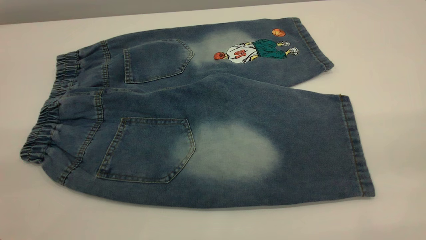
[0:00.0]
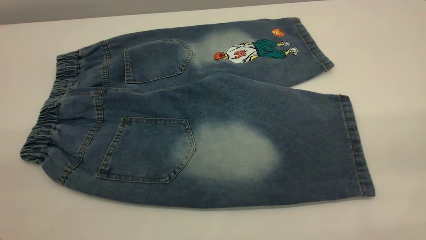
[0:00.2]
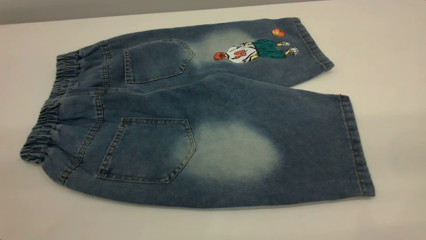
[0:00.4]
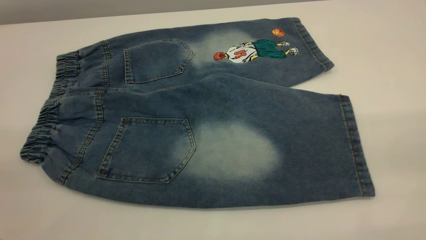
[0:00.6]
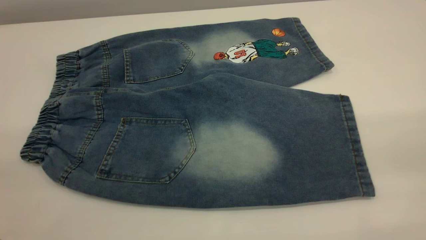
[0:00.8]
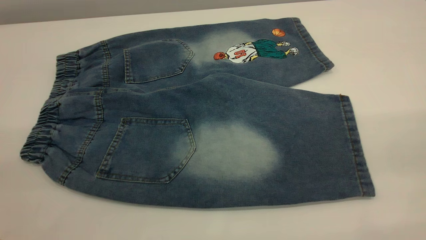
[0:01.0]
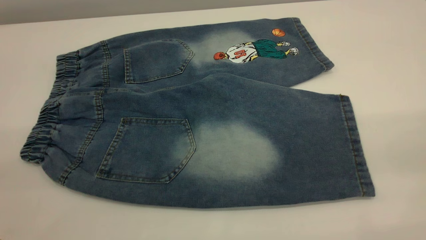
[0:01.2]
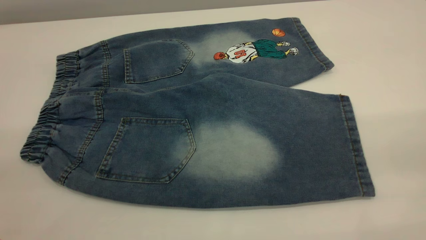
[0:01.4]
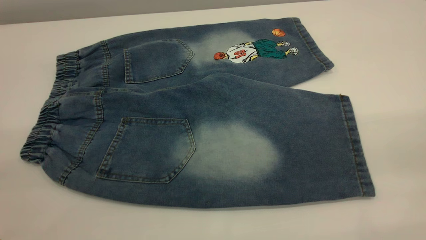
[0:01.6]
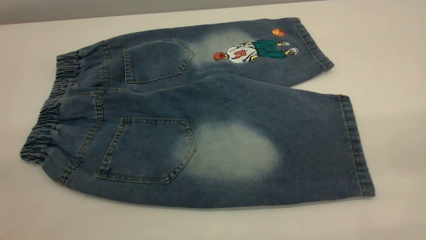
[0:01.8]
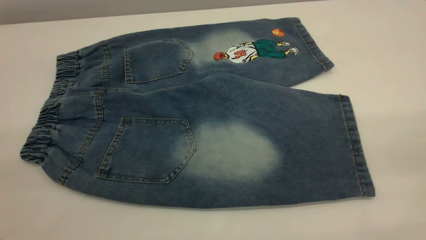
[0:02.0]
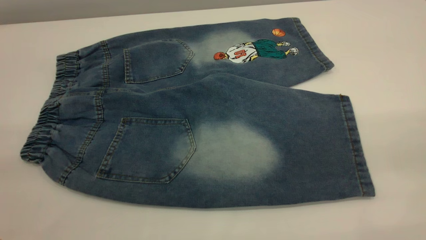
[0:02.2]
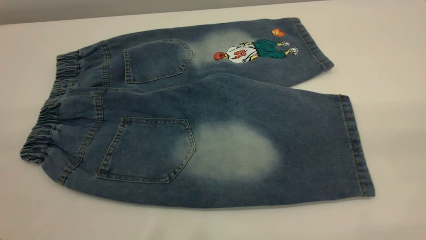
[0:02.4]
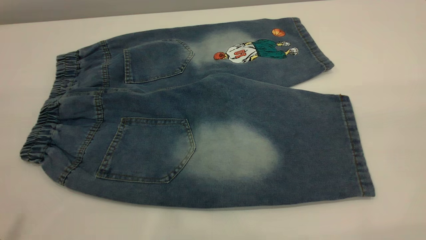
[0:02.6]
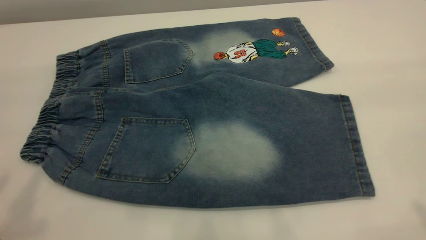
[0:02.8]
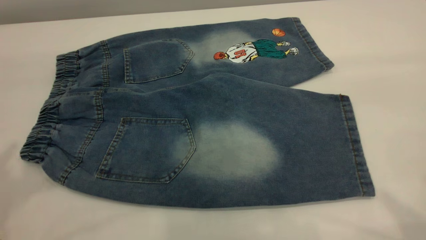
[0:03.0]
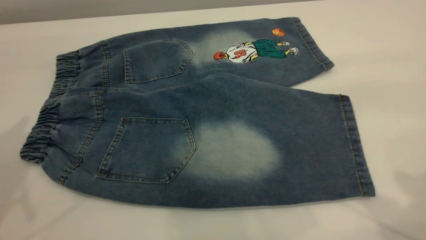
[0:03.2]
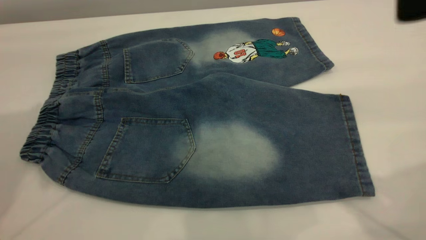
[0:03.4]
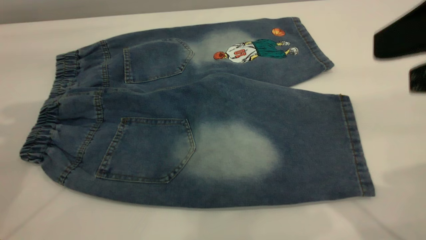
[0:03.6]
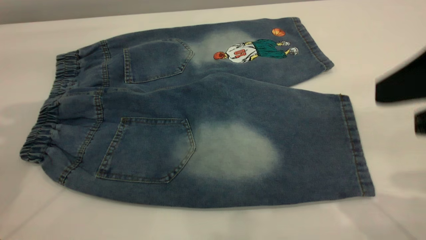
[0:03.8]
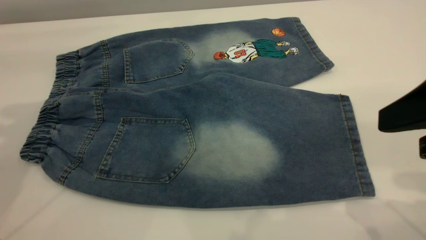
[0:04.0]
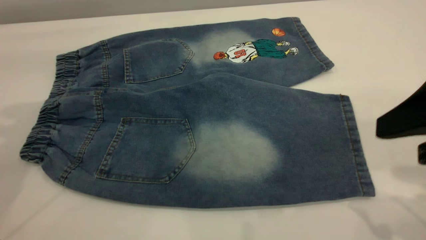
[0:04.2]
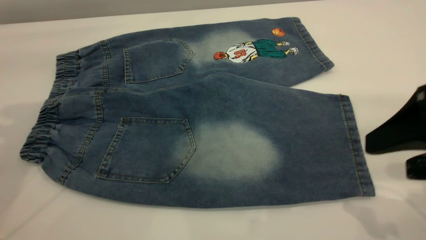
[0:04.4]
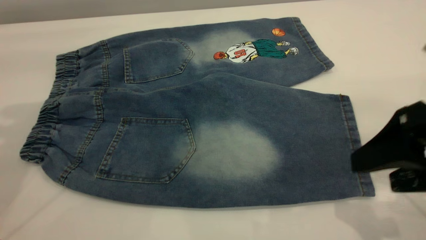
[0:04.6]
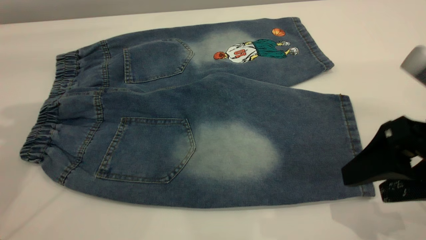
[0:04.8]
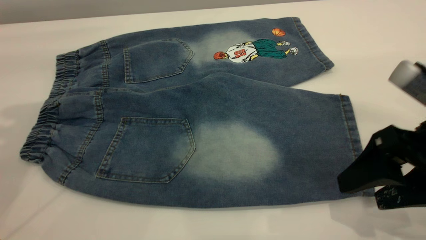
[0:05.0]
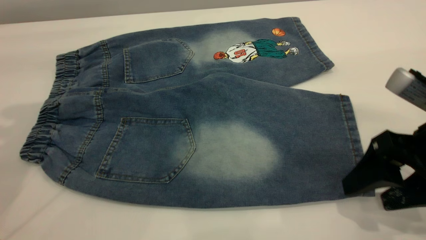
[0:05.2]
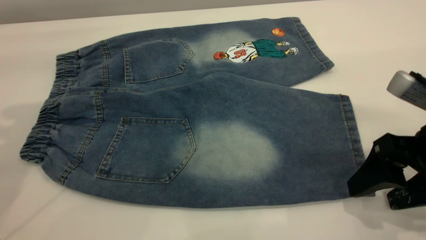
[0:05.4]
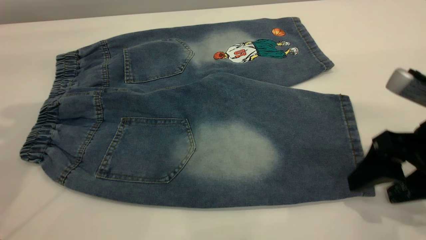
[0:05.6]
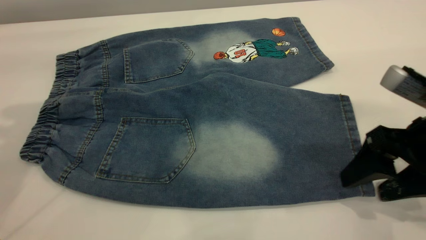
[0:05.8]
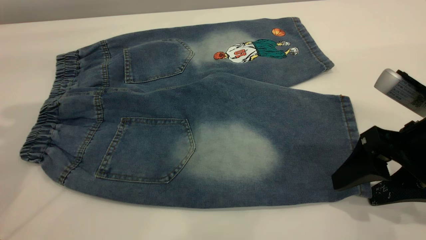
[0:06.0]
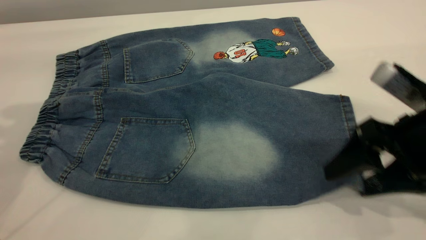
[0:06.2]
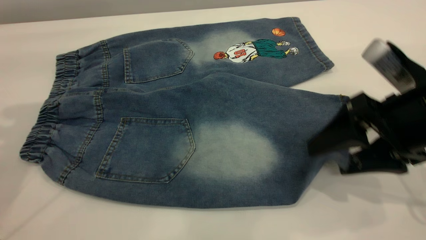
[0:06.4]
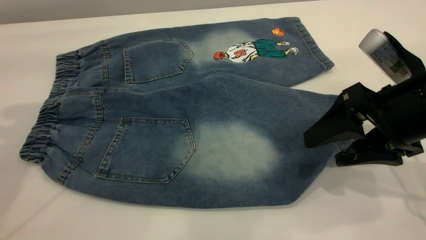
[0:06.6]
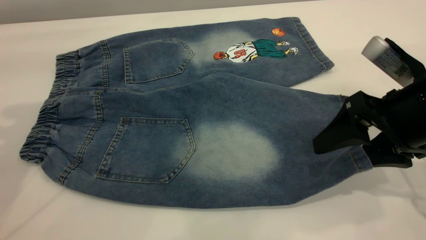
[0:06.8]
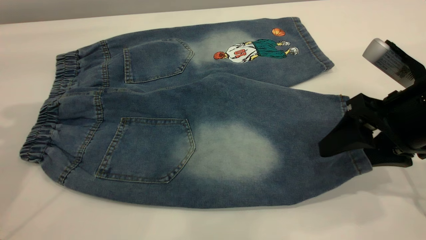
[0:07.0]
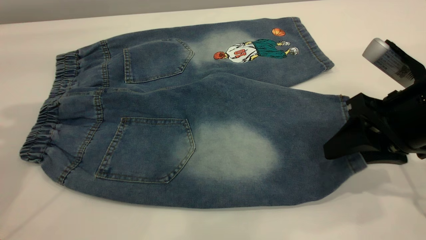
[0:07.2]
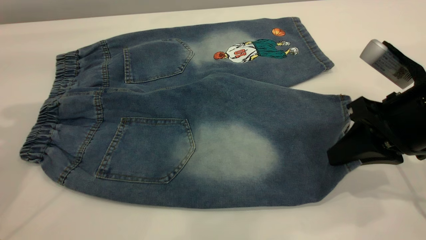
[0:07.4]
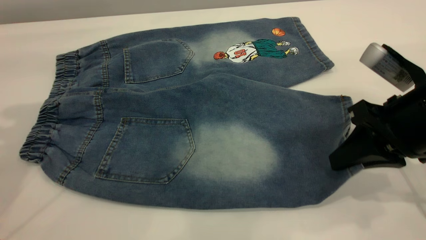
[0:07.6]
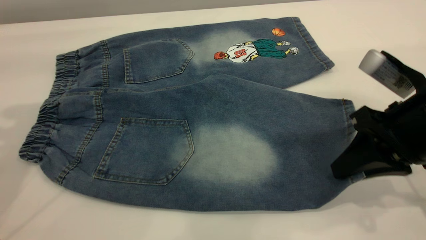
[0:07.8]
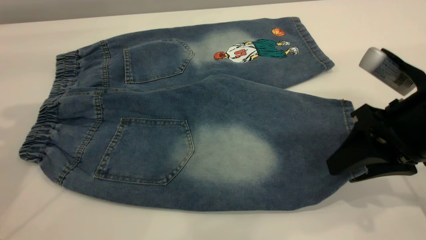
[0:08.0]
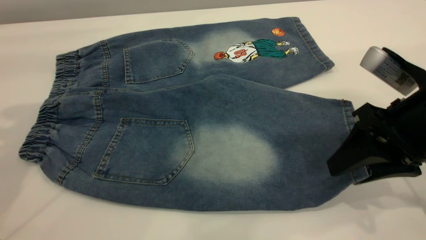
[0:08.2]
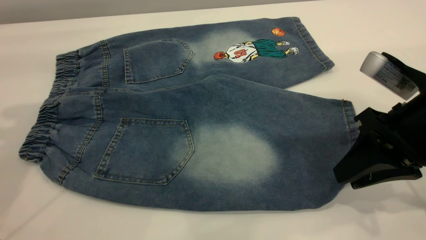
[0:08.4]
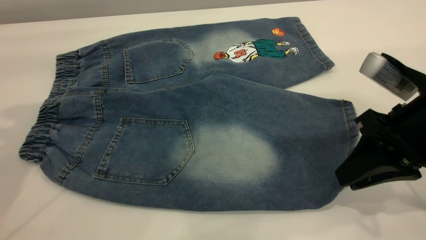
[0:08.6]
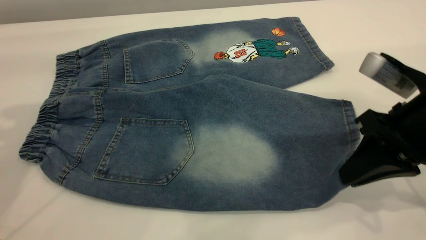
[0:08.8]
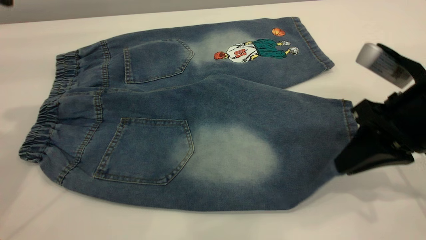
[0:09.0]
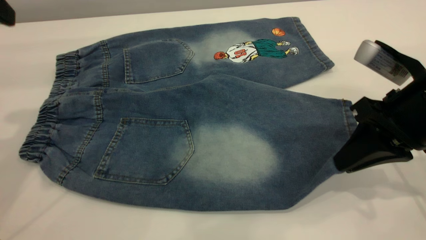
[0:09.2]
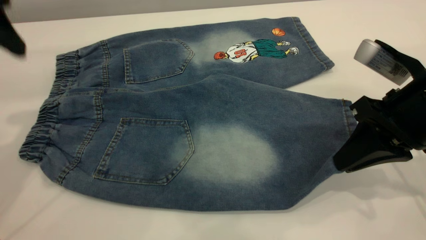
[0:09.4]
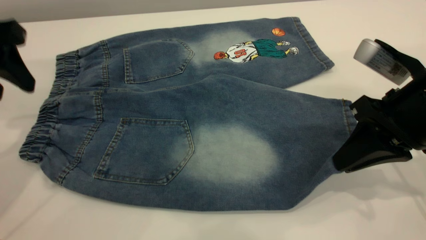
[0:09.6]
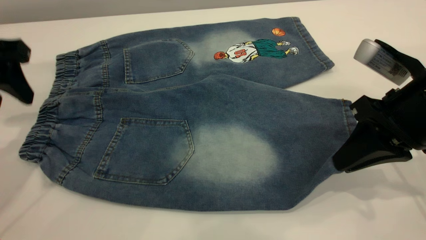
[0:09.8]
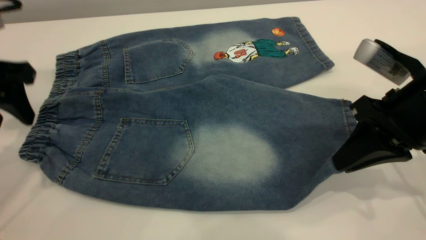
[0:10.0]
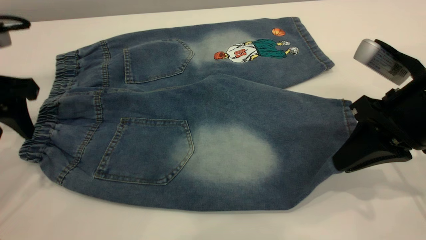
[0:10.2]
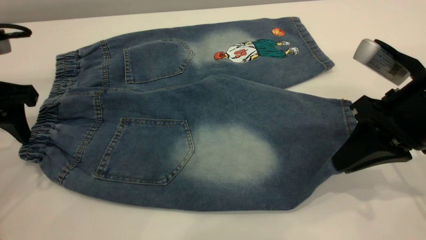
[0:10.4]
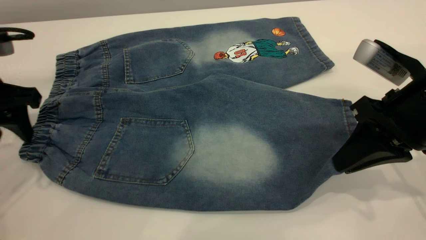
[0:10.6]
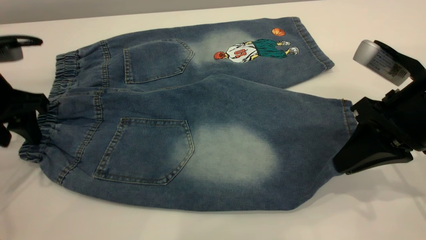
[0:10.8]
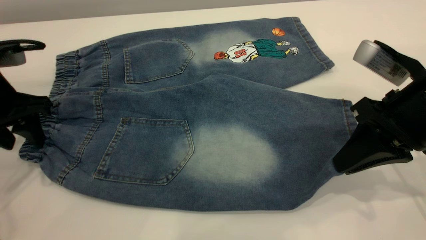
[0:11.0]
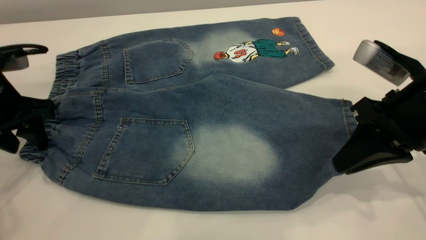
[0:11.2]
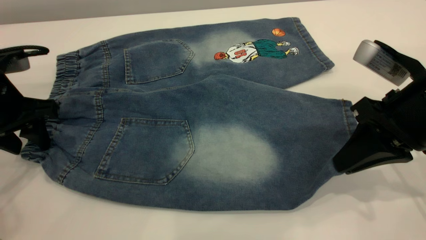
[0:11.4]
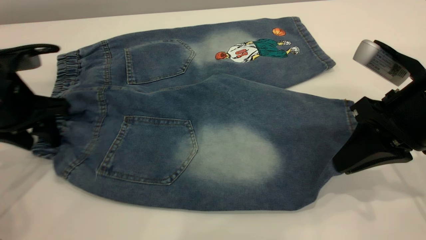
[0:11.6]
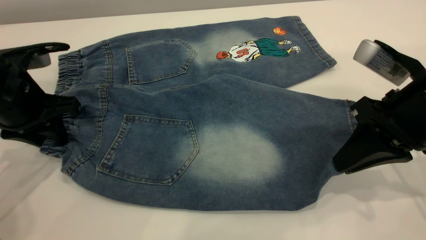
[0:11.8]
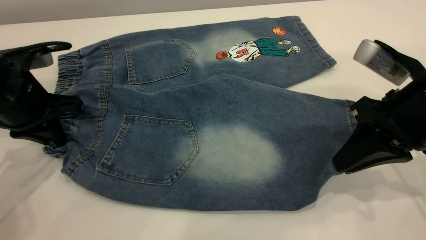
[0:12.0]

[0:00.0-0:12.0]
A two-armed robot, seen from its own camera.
0:00.0 to 0:01.6: Both grippers stay about where they are.
0:03.0 to 0:04.4: The left gripper travels forward and downward by about 10 cm. The right gripper goes approximately 20 cm downward.
0:04.4 to 0:06.0: The right gripper heads downward, covering about 5 cm.
0:06.0 to 0:07.6: The right gripper closes its fingers.
0:07.6 to 0:09.0: The right gripper opens, then closes once more.
0:09.0 to 0:10.4: The left gripper heads downward, covering about 15 cm.
0:10.4 to 0:12.0: The left gripper is displaced downward by some 5 cm, and closes.

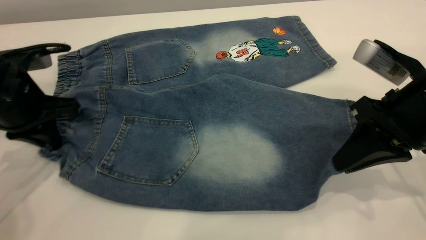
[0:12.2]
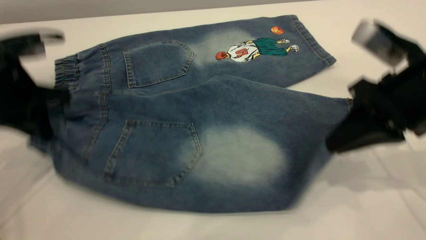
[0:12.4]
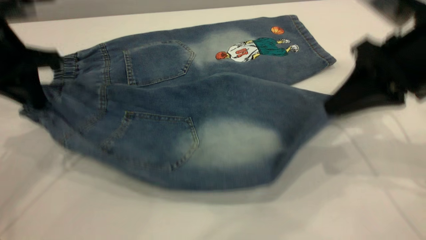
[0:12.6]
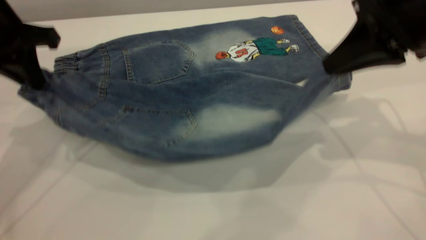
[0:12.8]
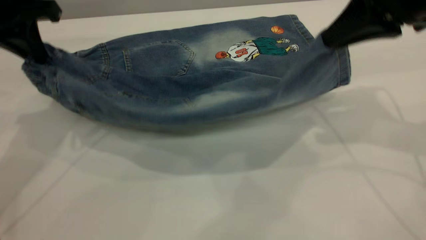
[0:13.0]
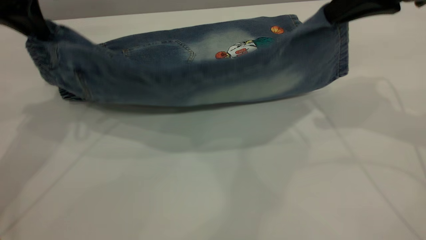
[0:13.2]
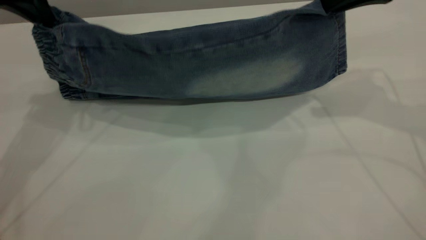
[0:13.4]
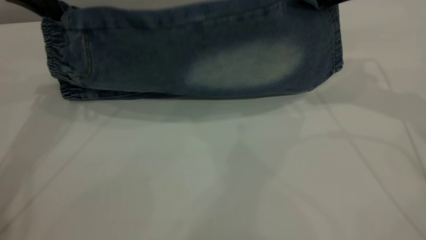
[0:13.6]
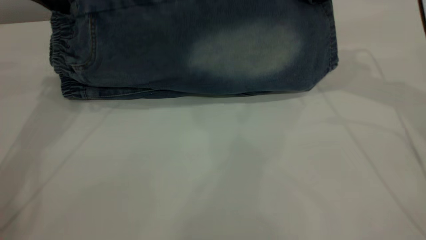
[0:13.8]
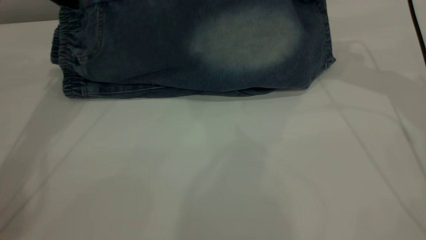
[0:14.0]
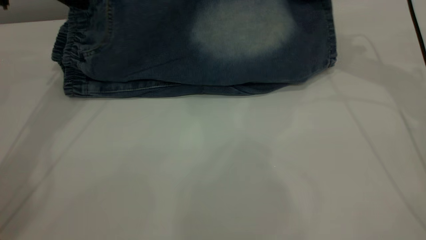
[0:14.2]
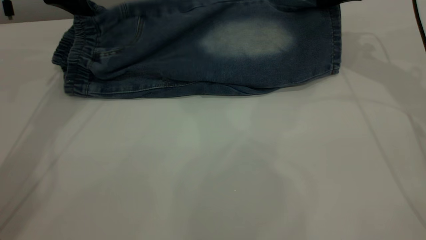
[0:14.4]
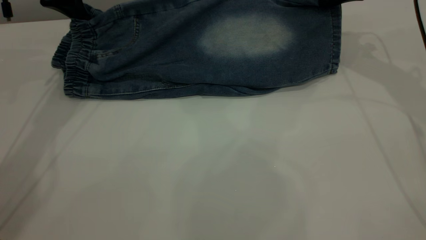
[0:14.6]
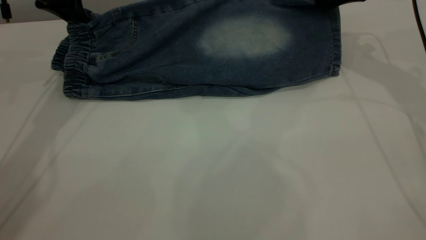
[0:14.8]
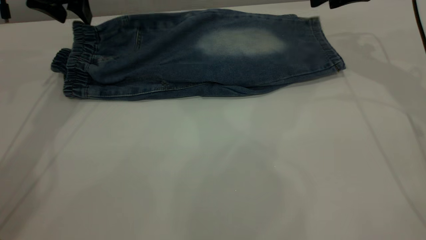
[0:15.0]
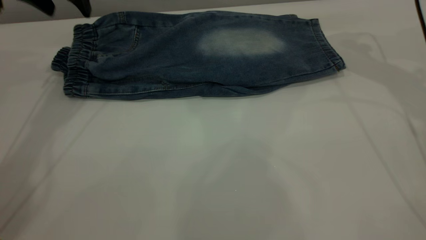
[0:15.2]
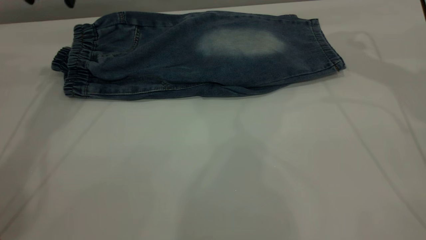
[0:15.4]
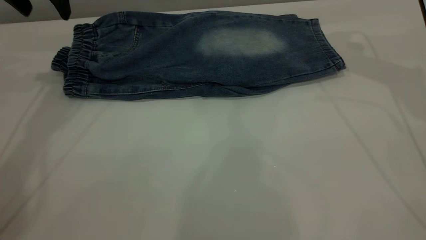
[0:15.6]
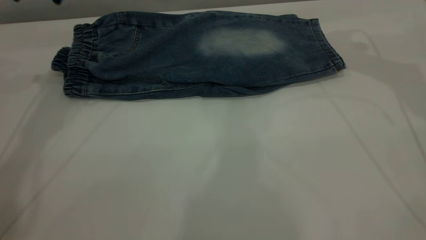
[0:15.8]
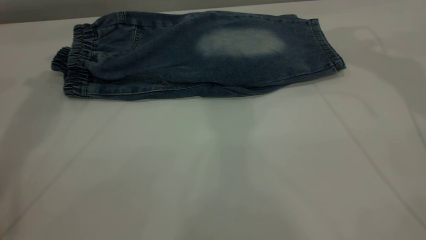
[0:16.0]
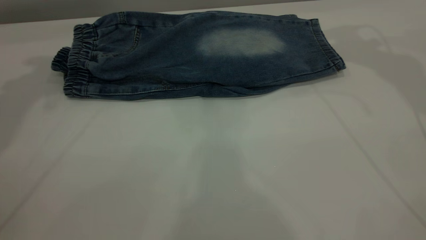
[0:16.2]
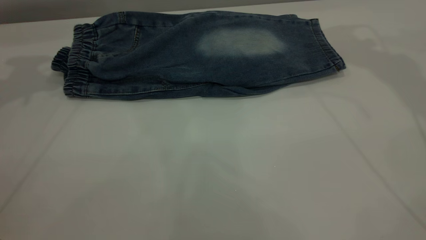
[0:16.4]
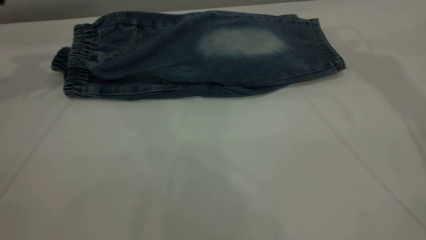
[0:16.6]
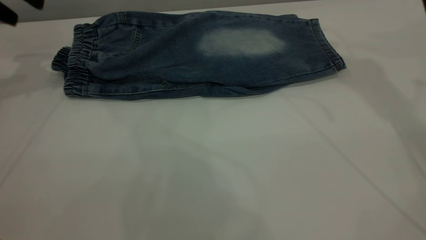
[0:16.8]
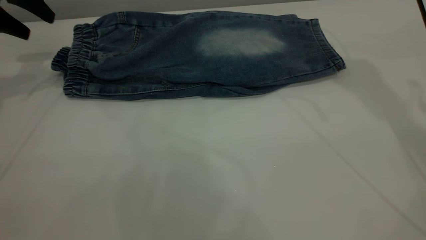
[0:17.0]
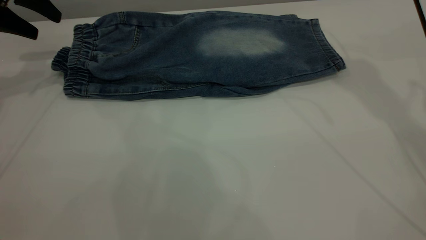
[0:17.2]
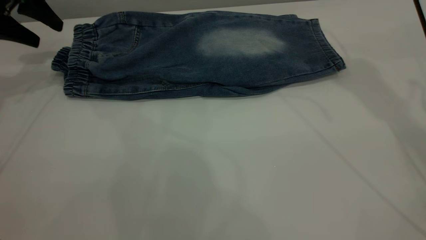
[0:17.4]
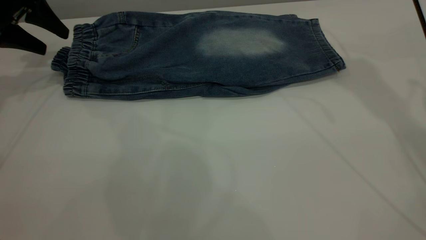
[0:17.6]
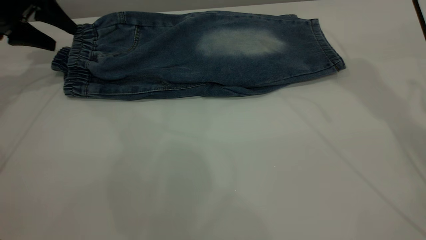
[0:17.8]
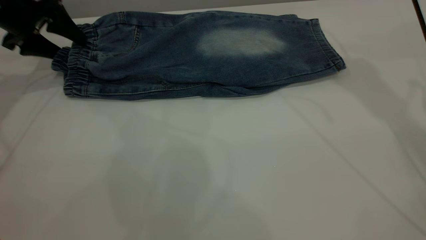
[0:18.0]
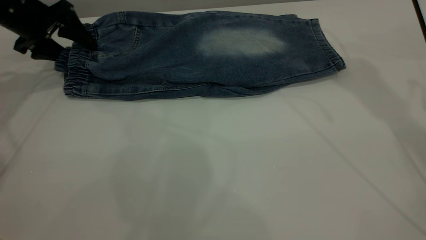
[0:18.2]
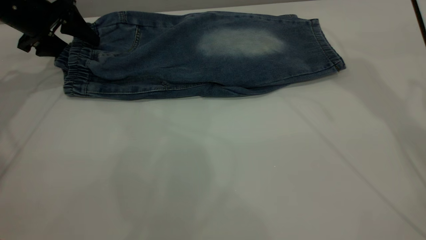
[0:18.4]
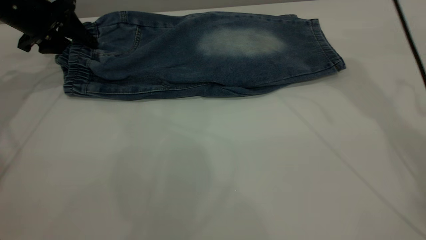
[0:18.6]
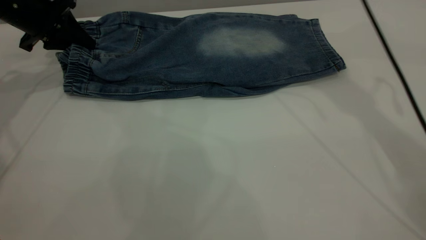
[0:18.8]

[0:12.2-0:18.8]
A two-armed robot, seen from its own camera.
Step, 0:12.2 to 0:15.8: Fold the bottom of the pants upward.
0:12.2 to 0:13.8: Both grippers travel together forward and upward, roughly 20 cm.
0:13.8 to 0:15.4: The right gripper opens. Meanwhile the left gripper opens.
0:15.4 to 0:17.2: The left gripper heads to the left, covering roughly 10 cm.
0:17.2 to 0:18.8: The left gripper moves downward, roughly 5 cm, and closes. Meanwhile the right gripper heads downward and to the left, covering approximately 10 cm.
